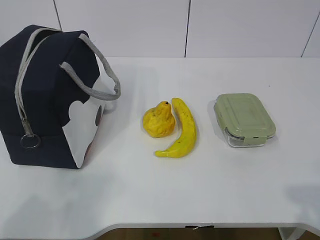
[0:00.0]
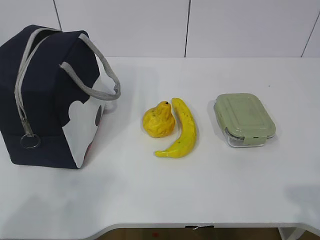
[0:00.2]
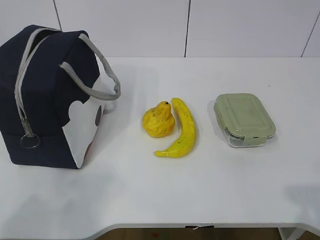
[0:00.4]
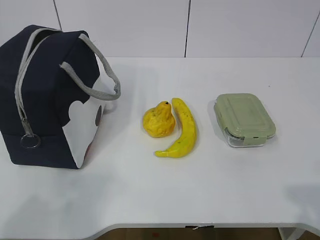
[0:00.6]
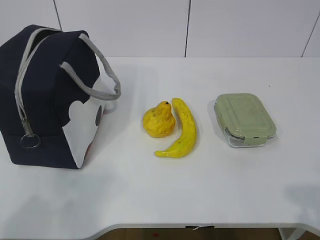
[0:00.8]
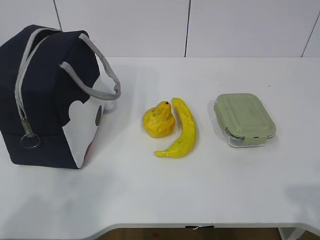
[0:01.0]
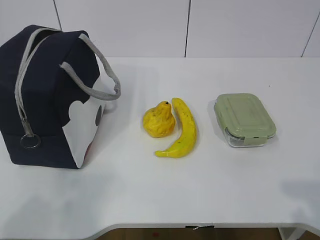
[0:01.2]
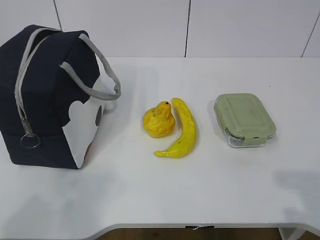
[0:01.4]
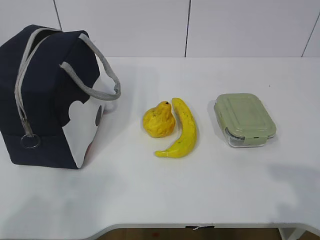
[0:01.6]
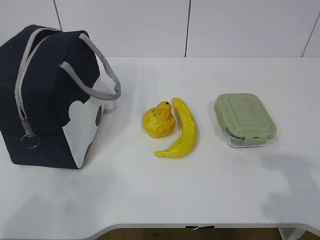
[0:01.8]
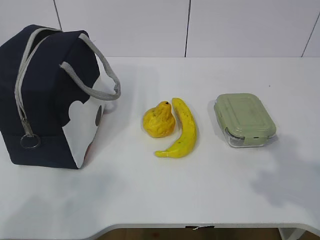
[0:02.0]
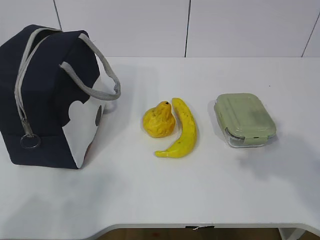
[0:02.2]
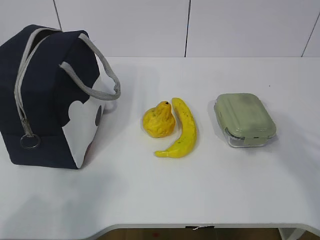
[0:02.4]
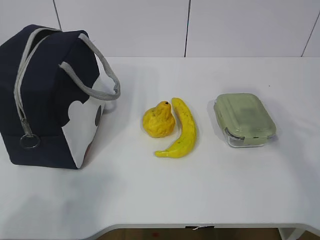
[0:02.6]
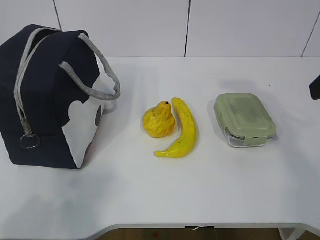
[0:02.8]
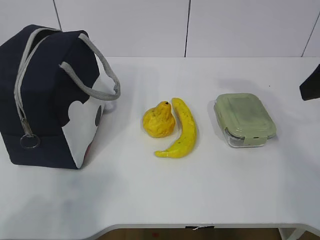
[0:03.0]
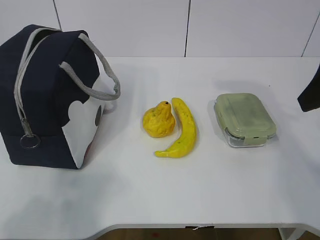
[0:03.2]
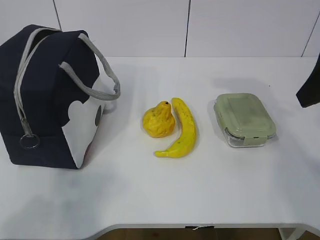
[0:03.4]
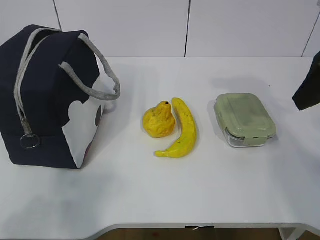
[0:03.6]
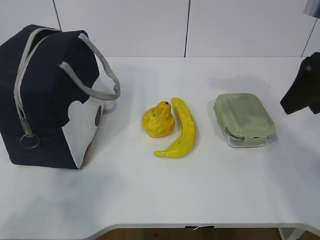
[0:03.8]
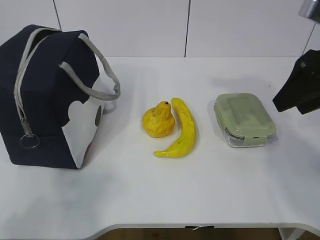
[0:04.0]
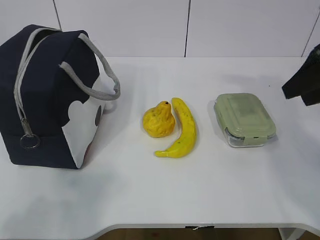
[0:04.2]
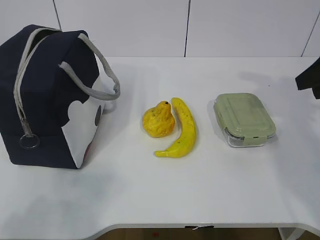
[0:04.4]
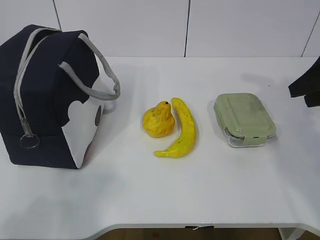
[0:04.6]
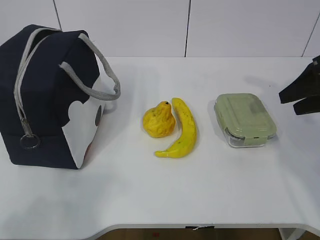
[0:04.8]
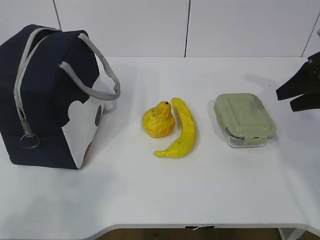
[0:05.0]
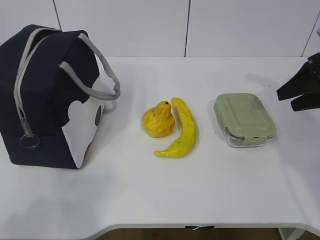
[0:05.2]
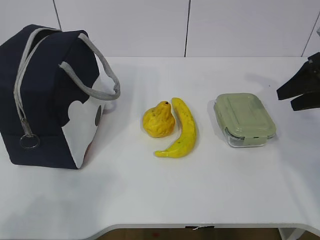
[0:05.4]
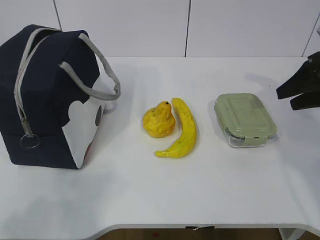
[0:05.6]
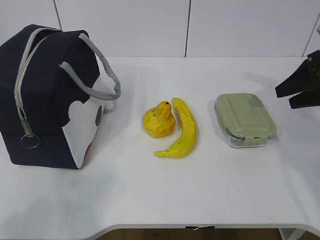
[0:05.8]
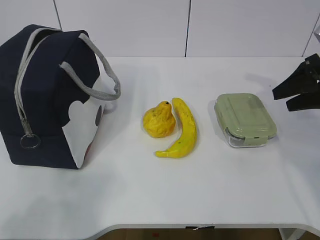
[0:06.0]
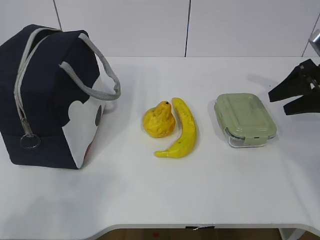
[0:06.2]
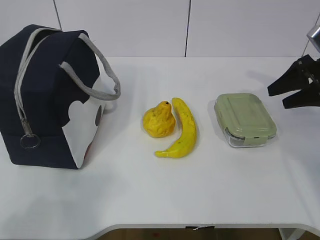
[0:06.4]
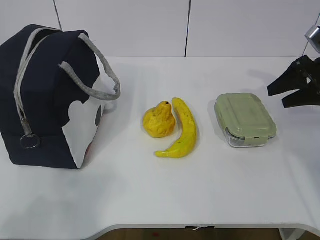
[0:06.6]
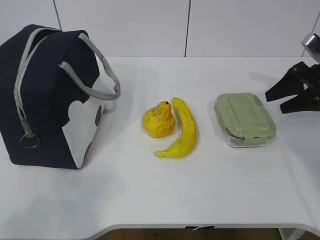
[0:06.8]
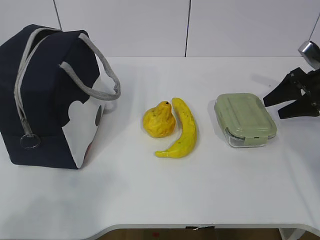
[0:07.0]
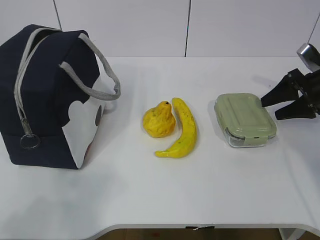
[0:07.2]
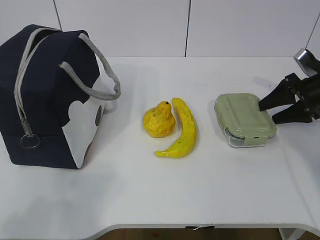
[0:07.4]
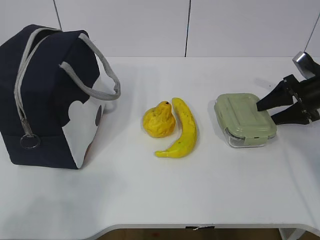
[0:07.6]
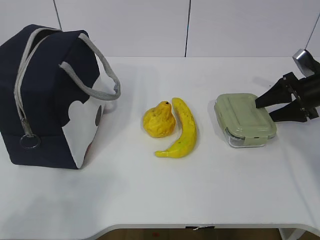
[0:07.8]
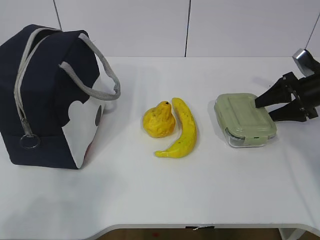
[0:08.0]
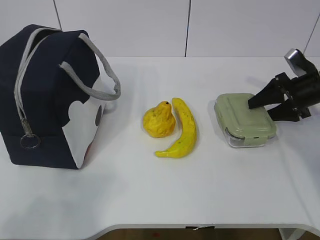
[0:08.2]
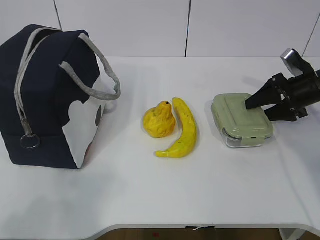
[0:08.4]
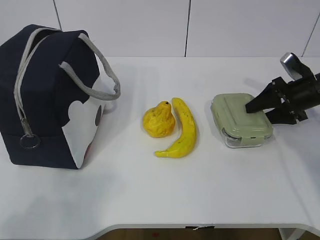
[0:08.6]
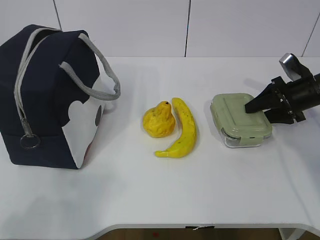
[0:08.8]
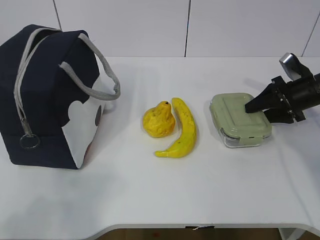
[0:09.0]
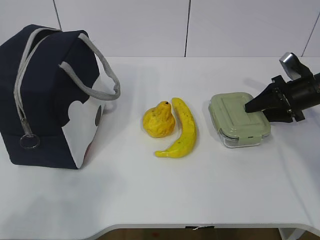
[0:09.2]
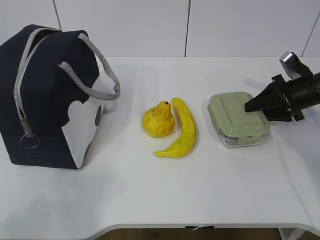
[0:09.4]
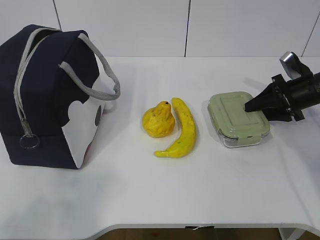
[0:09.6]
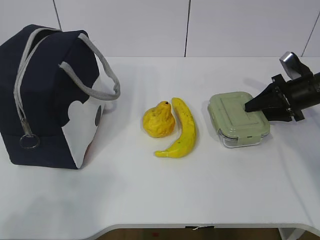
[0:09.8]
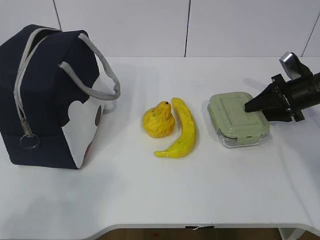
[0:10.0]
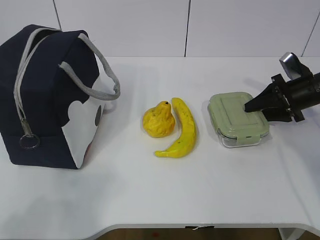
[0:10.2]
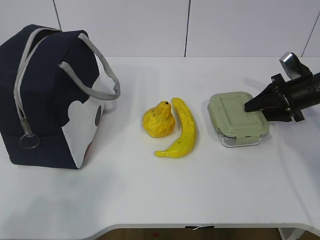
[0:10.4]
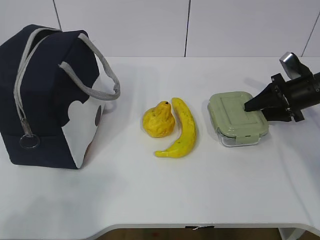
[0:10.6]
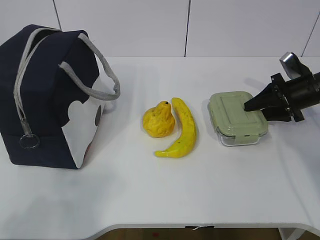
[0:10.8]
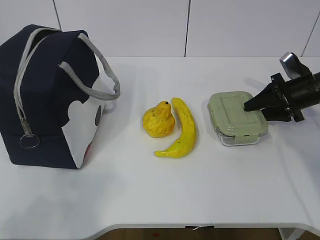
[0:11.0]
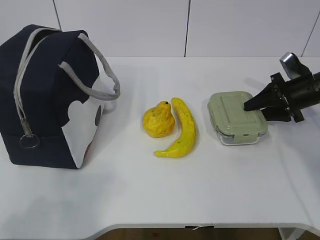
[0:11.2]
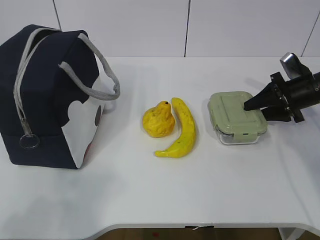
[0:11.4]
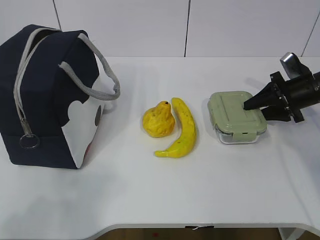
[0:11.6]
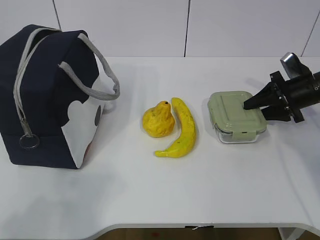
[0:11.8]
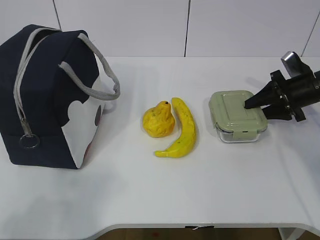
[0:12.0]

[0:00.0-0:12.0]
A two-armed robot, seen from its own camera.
Step, 0:00.0 to 0:09.8: Grab the lunch box with your right hand.
0:01.6 to 0:03.0: The right gripper goes approximately 20 cm forward.
0:03.0 to 0:04.4: The right gripper shifts roughly 10 cm forward and to the right.
0:04.4 to 0:06.0: The right gripper is displaced downward and forward by roughly 10 cm.
0:06.0 to 0:07.6: The right gripper moves downward and forward, some 10 cm.
0:07.6 to 0:09.0: There are only small adjustments of the grippers.
0:09.0 to 0:10.4: Neither gripper changes place.
0:10.4 to 0:12.0: There are only small adjustments of the grippers.

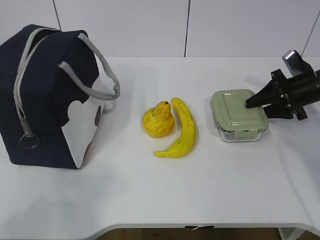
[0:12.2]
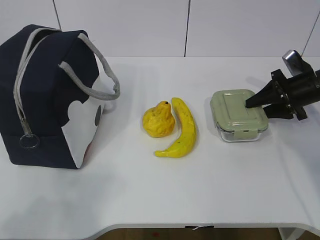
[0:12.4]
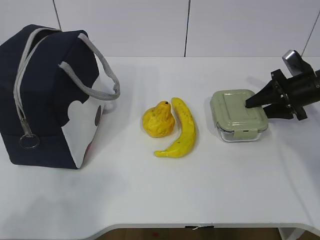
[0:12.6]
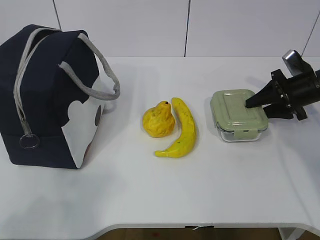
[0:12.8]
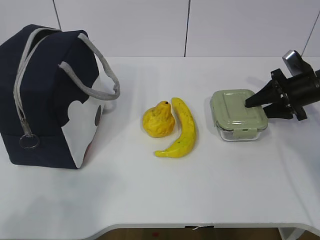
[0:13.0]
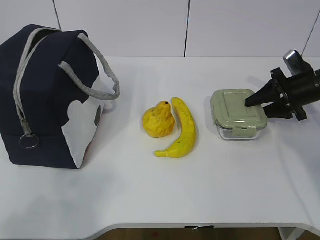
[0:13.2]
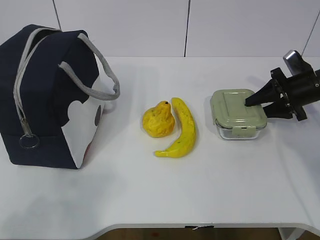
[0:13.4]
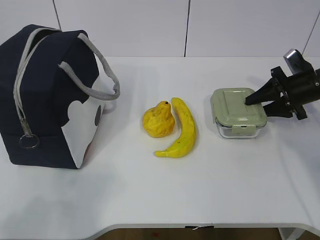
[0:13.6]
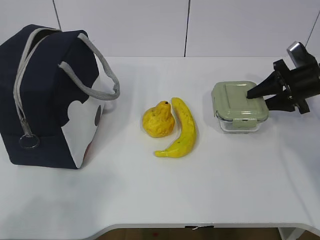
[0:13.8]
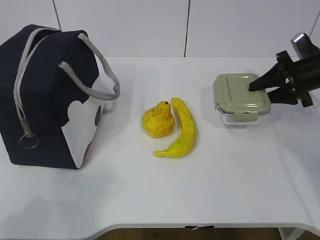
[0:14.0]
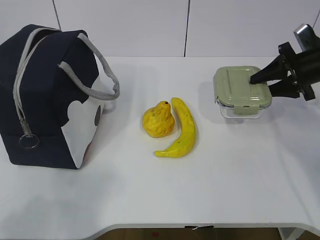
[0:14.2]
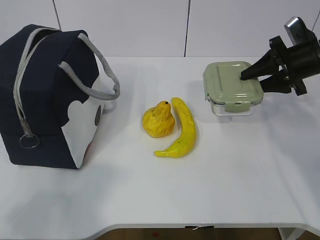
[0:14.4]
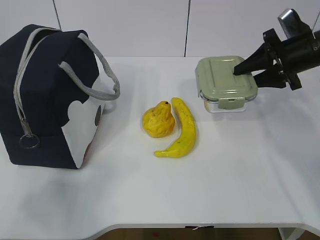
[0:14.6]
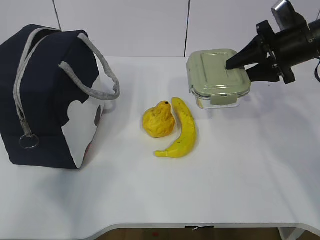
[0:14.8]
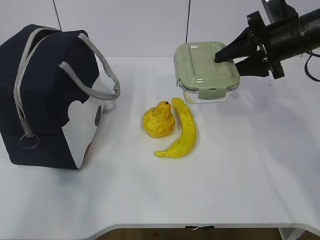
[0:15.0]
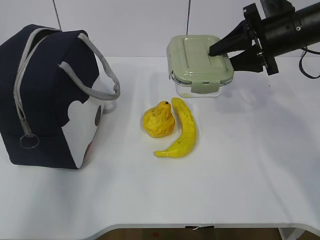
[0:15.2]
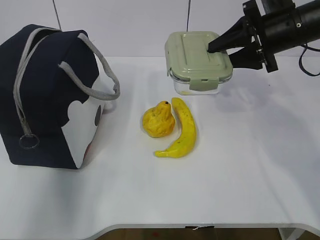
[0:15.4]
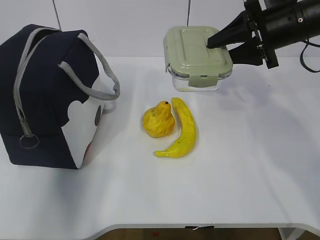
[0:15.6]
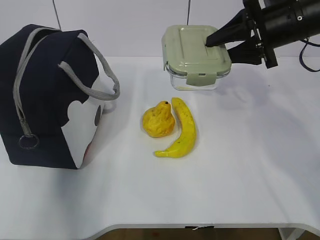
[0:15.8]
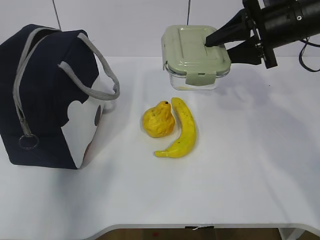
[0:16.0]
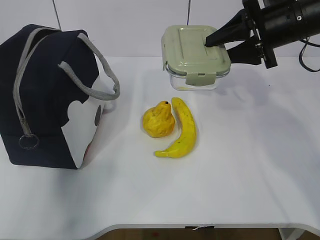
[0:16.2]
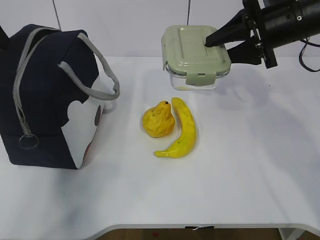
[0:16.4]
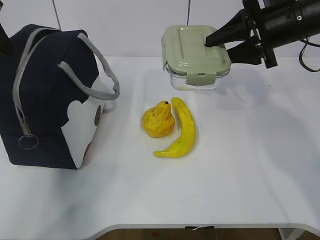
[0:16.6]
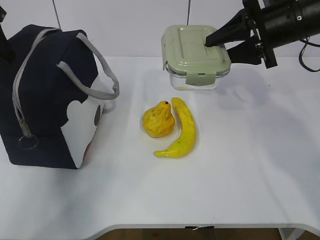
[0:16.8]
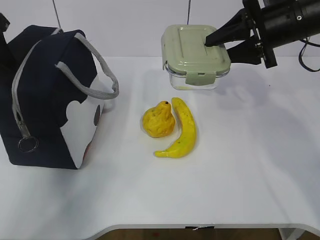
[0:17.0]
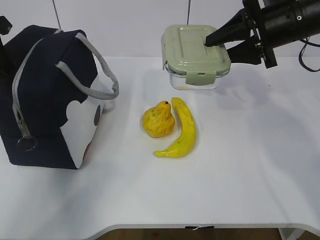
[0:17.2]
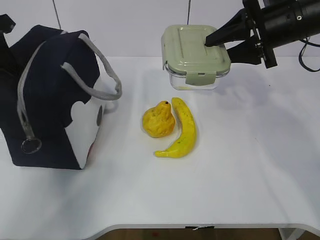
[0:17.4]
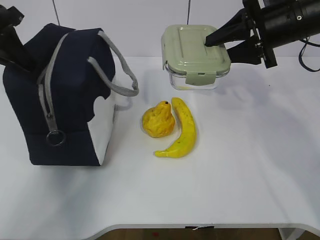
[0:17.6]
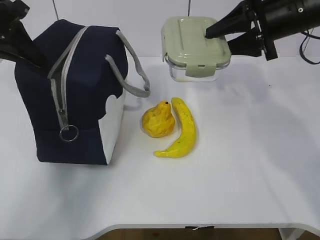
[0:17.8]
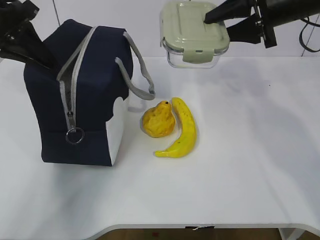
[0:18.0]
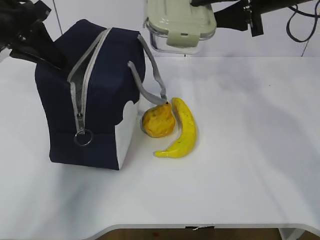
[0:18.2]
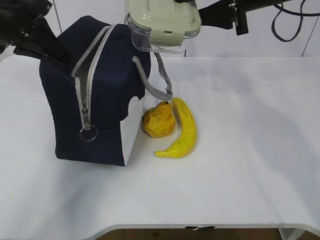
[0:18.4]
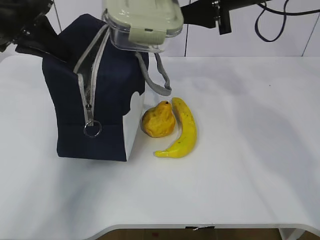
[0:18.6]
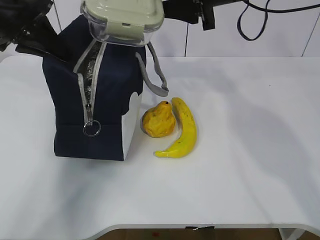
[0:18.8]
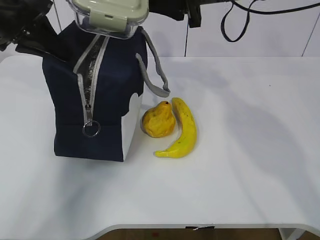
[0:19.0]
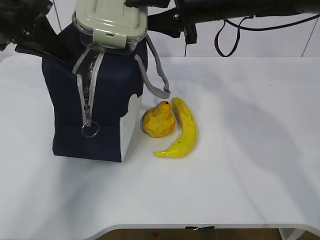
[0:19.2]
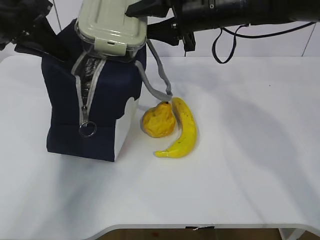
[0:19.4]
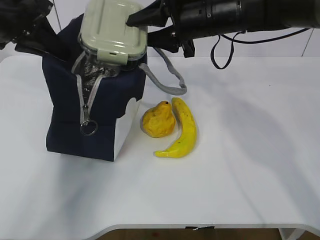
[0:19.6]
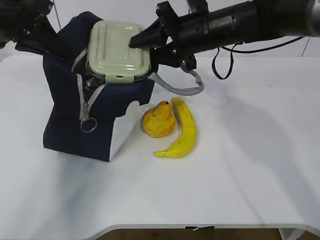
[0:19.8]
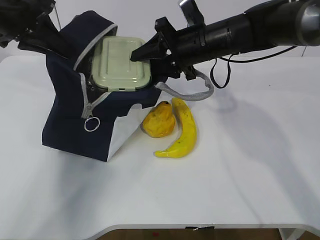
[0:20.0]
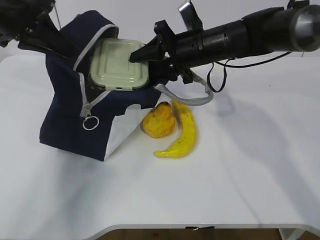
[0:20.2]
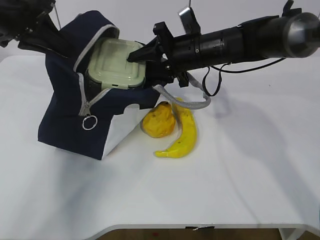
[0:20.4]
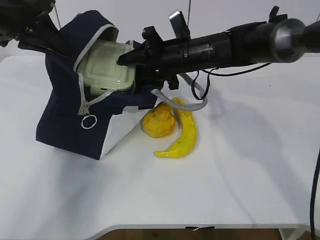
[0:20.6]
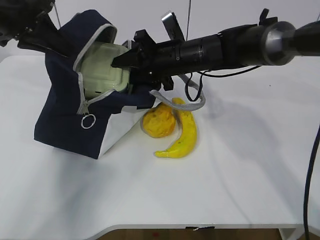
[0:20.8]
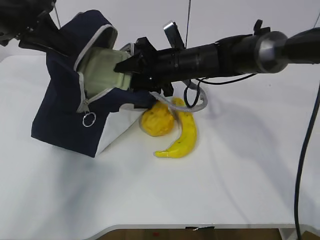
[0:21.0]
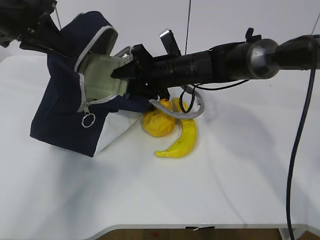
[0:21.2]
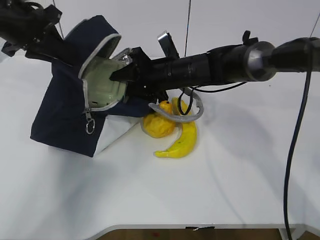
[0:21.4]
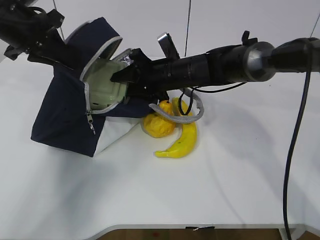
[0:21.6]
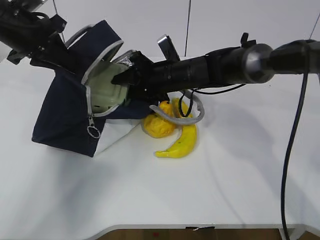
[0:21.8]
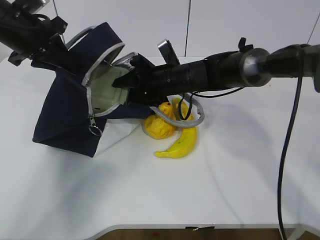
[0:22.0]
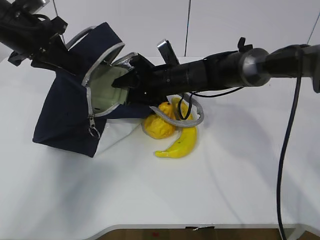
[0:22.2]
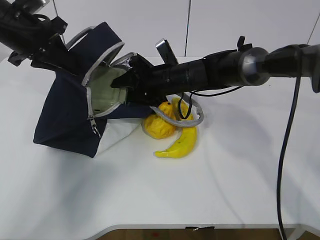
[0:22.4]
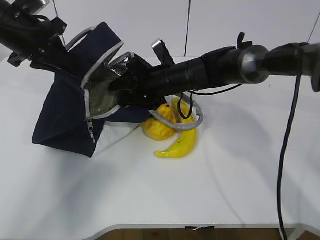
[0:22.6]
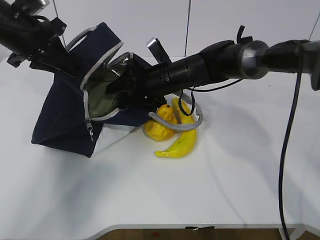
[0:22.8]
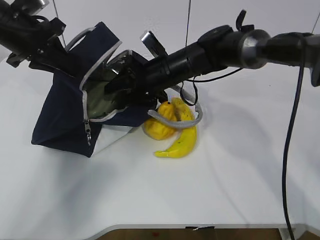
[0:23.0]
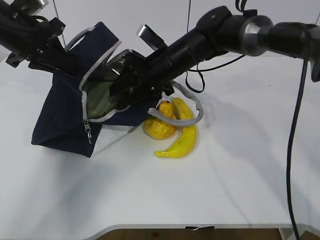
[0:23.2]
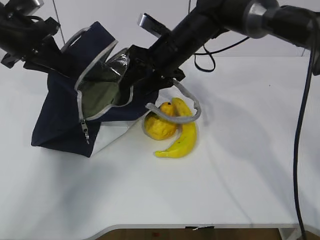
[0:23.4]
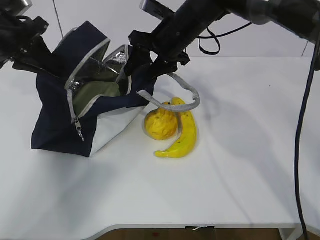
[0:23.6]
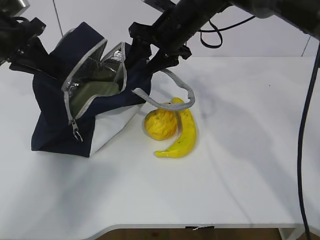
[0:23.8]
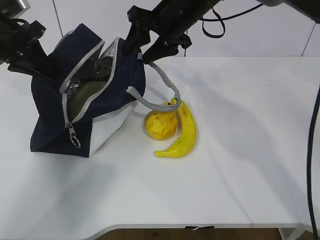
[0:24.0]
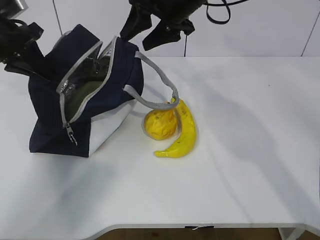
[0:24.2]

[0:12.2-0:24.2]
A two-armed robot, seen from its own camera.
Step, 0:12.2 to 0:15.8: Grab the lunch bag with your left hand.
Step, 0:16.0 to 0:19.0: Place it into the bag with your right hand.
Step, 0:19.2 to 0:22.8: Grab the banana with your right hand.
0:12.2 to 0:13.8: There are only small adjustments of the grippers.
0:13.8 to 0:15.2: The left gripper is displaced forward and upward by roughly 15 cm. Meanwhile the right gripper is displaced upward and to the left by about 15 cm.
0:15.2 to 0:16.6: The left gripper travels forward by some 25 cm.
0:16.6 to 0:18.2: The right gripper ends up some 5 cm from where it was. The left gripper is displaced to the right by about 5 cm, and closes.
0:18.2 to 0:19.8: The right gripper heads to the left and downward, covering about 10 cm.
0:19.8 to 0:21.2: The right gripper heads downward, covering approximately 10 cm.
0:21.2 to 0:22.6: The grippers make only small movements.
0:22.6 to 0:24.2: The right gripper shifts approximately 15 cm upward.
